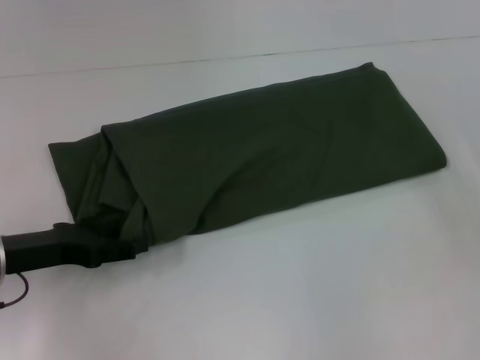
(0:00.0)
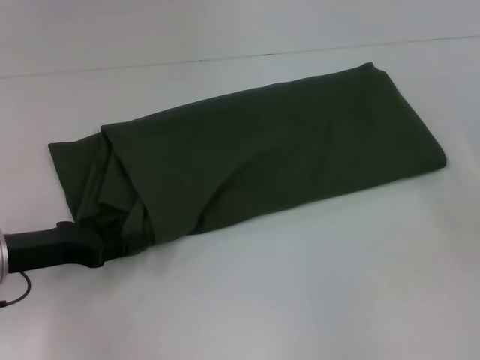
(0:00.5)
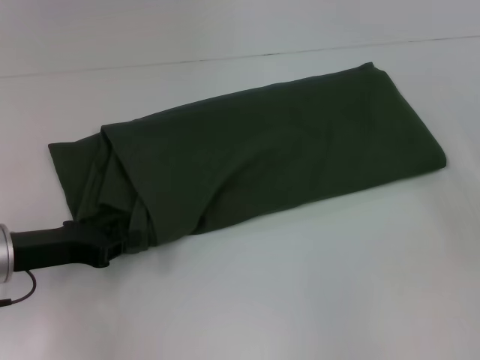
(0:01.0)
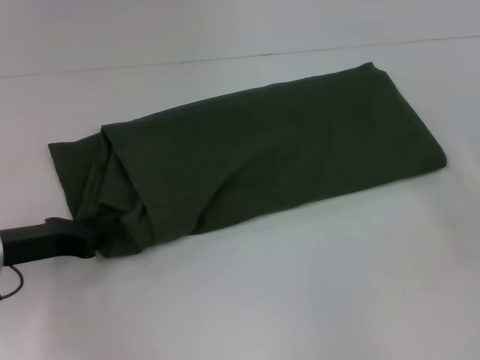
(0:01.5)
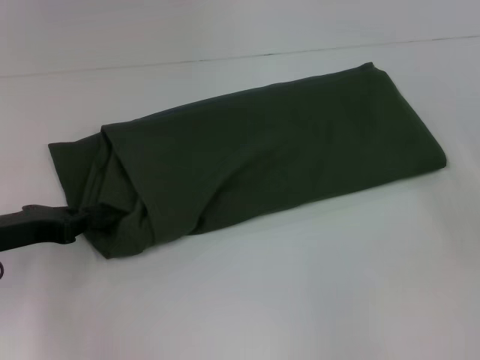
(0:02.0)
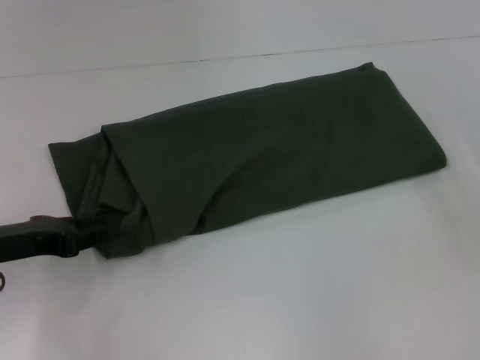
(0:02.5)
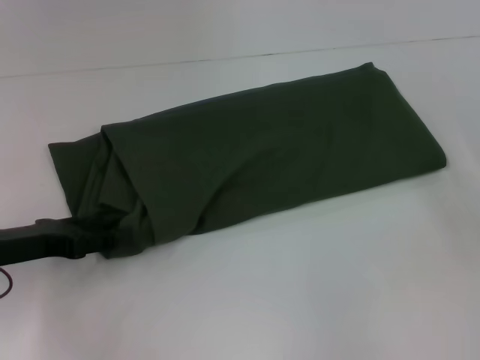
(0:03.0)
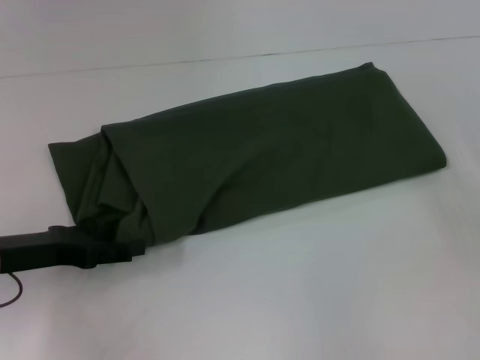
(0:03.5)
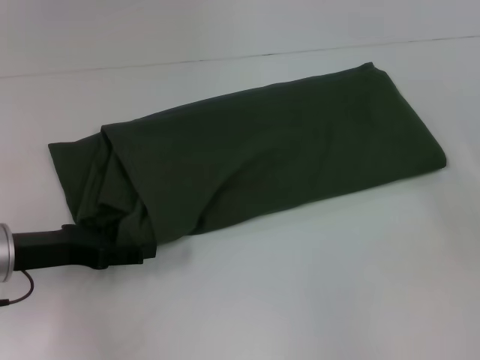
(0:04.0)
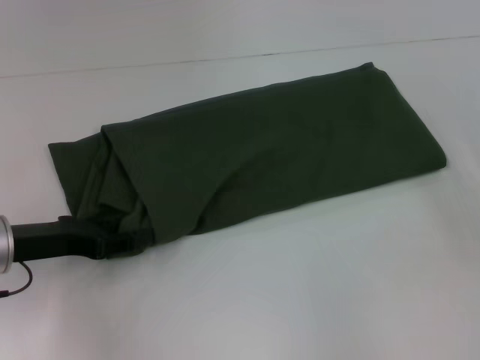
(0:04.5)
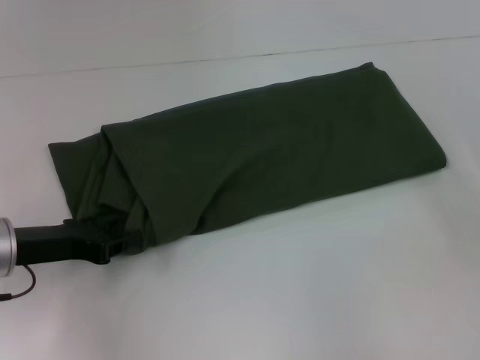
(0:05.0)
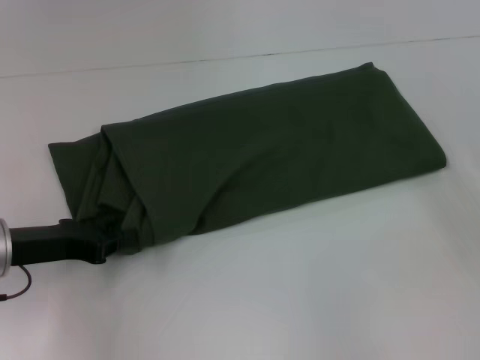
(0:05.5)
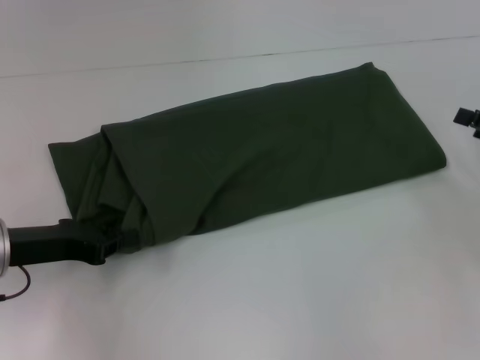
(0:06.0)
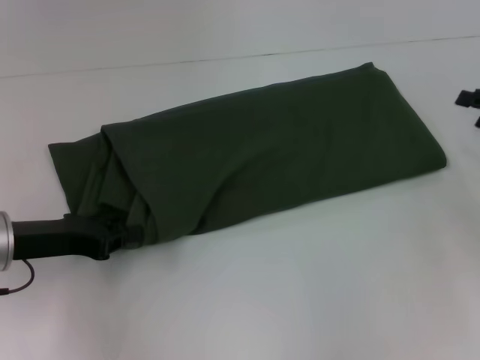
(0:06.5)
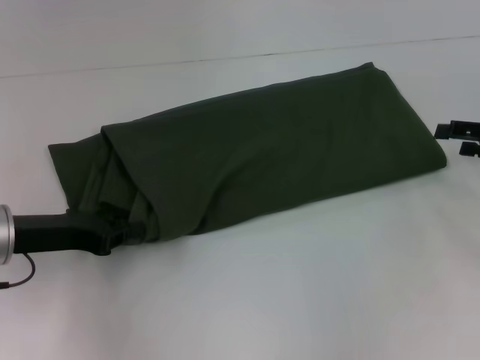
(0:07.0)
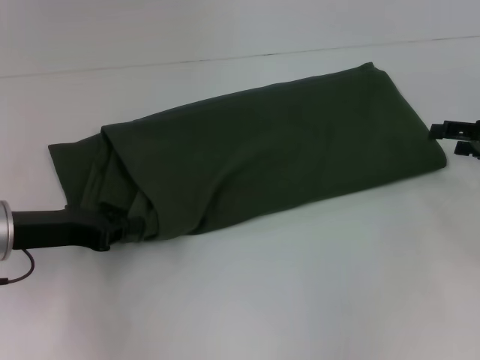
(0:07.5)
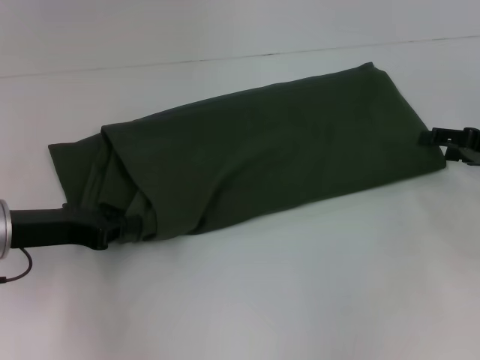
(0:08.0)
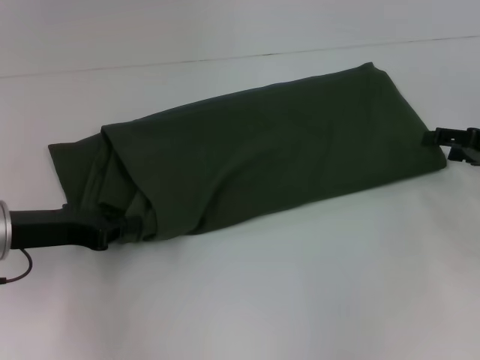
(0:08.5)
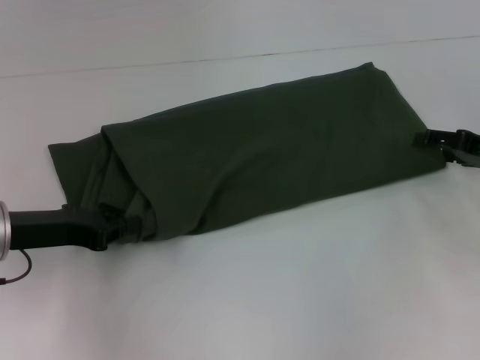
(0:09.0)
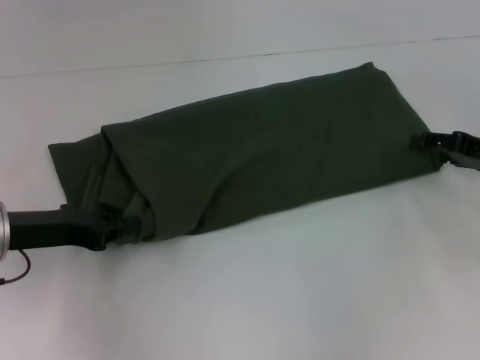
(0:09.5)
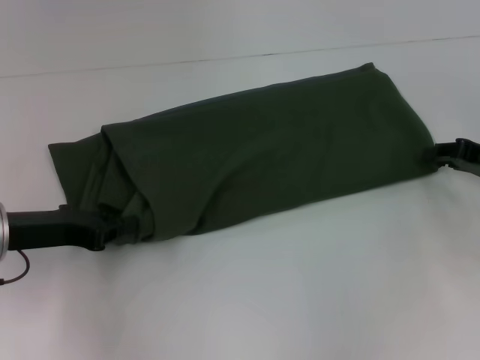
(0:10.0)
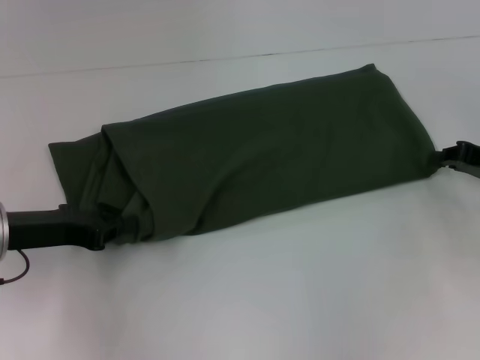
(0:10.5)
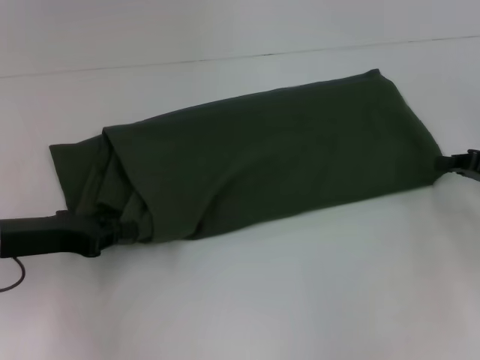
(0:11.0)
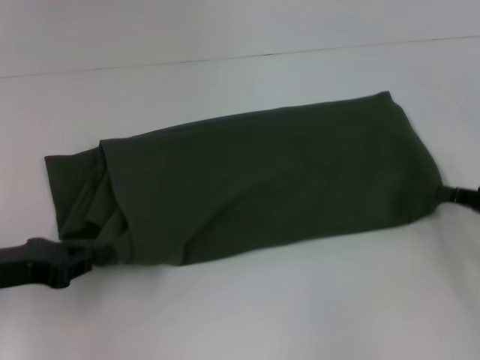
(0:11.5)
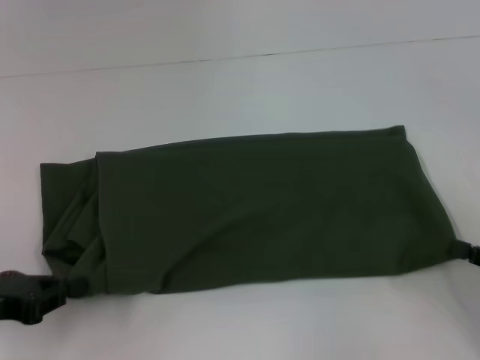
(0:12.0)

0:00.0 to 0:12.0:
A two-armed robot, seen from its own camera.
0:00.0 to 0:02.0: The left gripper closes.
0:02.0 to 0:04.0: The left gripper opens.
0:04.0 to 0:06.0: The left gripper closes.
0:06.0 to 0:08.0: The grippers move only a little.
0:08.0 to 0:10.0: Both grippers stay put.
0:10.0 to 0:12.0: The right gripper moves backward, roughly 15 cm, and closes its fingers; the left gripper travels backward and to the left by about 10 cm.

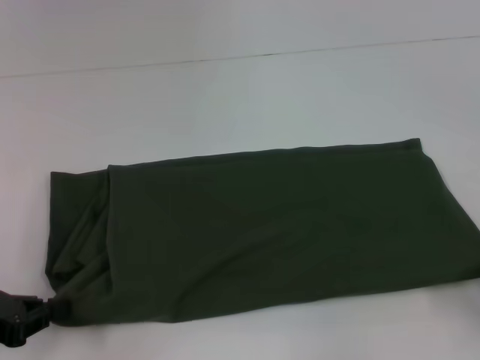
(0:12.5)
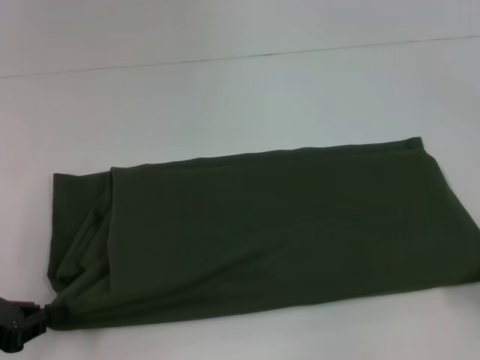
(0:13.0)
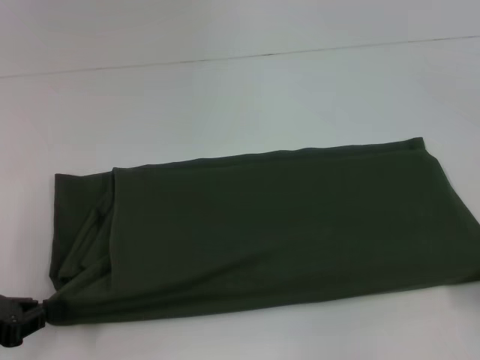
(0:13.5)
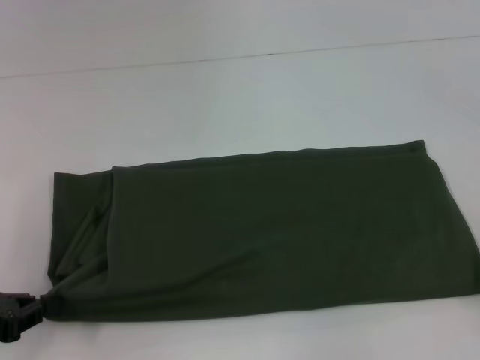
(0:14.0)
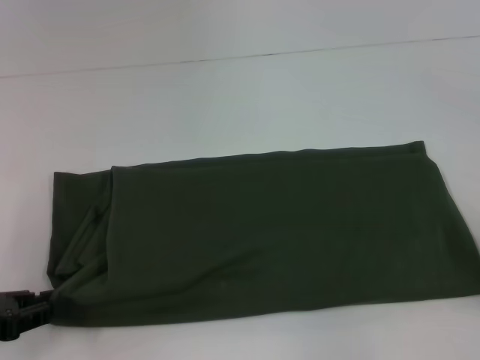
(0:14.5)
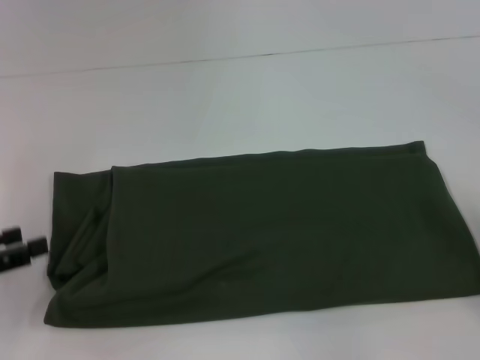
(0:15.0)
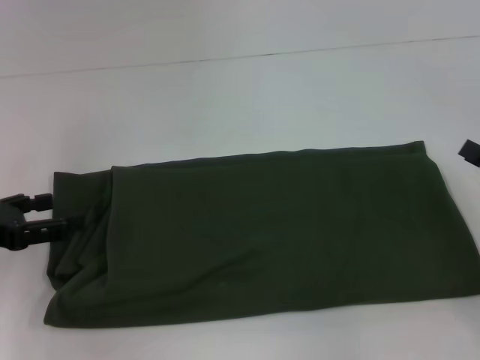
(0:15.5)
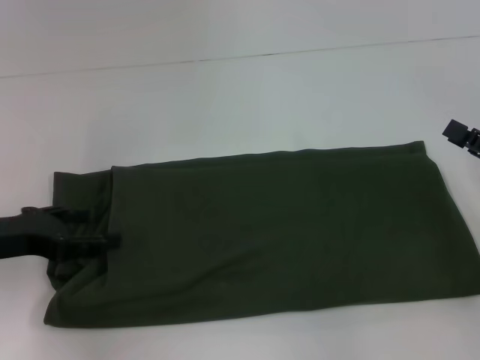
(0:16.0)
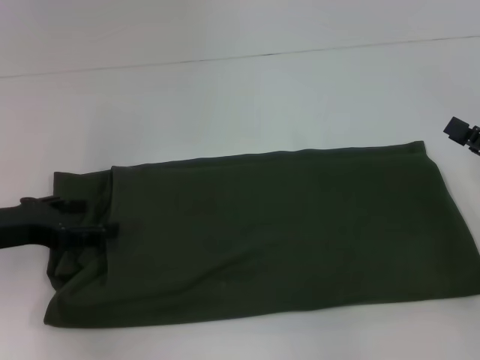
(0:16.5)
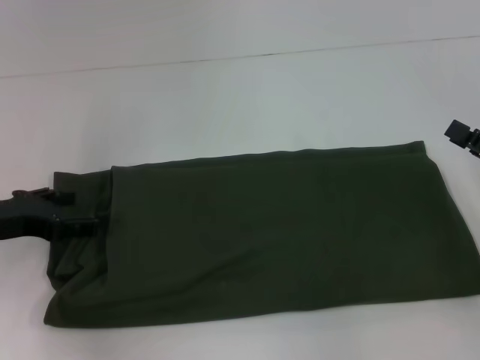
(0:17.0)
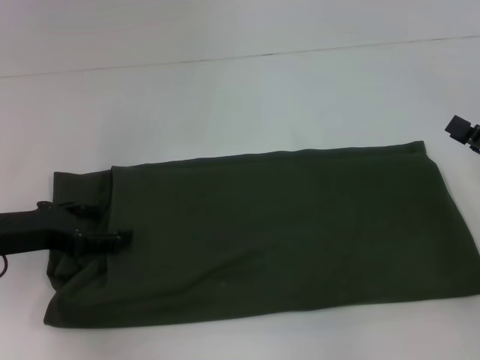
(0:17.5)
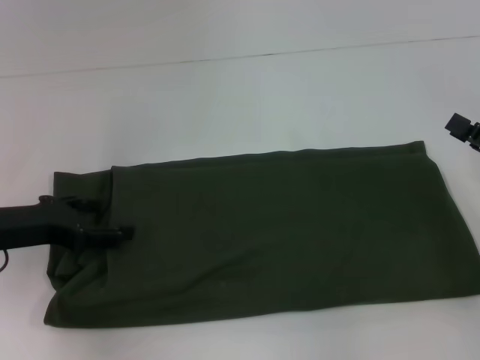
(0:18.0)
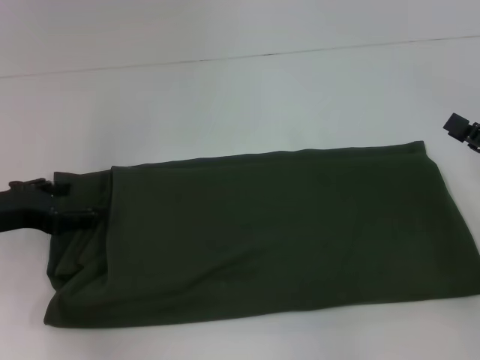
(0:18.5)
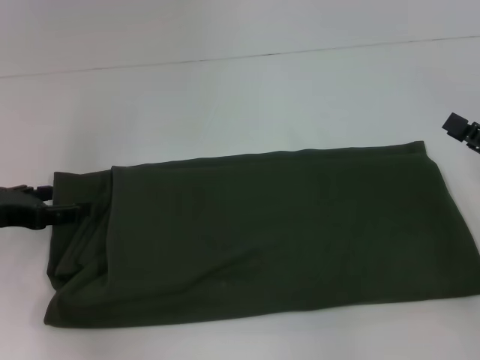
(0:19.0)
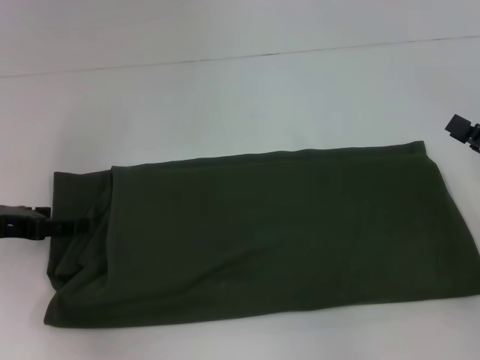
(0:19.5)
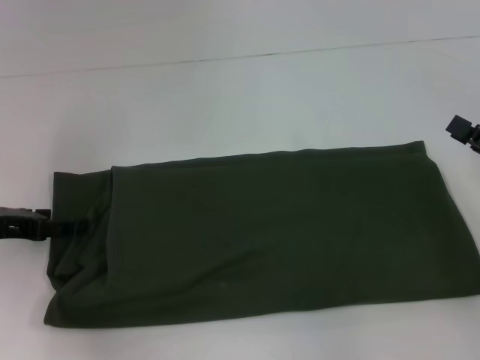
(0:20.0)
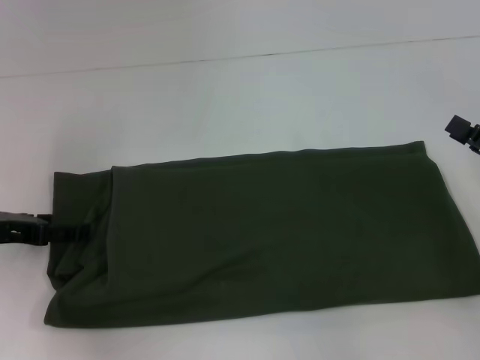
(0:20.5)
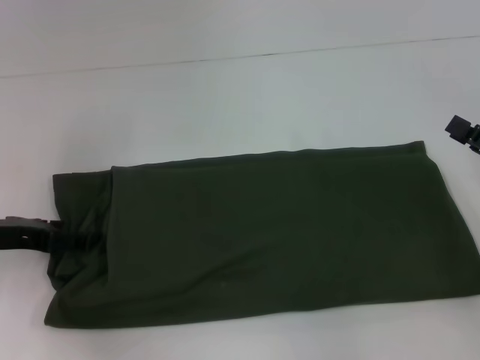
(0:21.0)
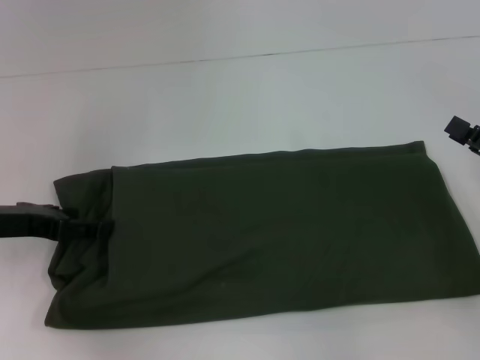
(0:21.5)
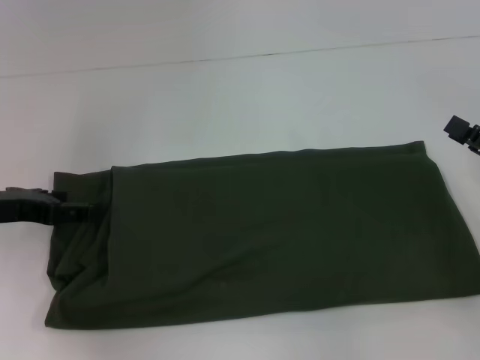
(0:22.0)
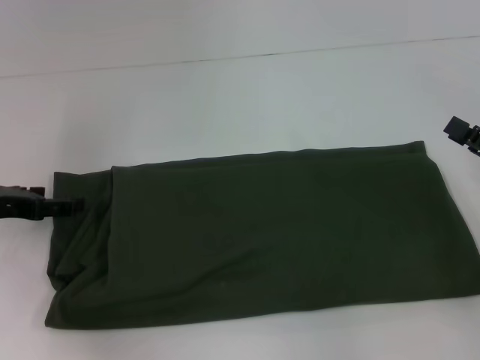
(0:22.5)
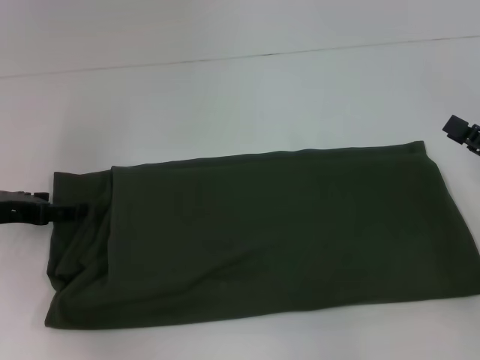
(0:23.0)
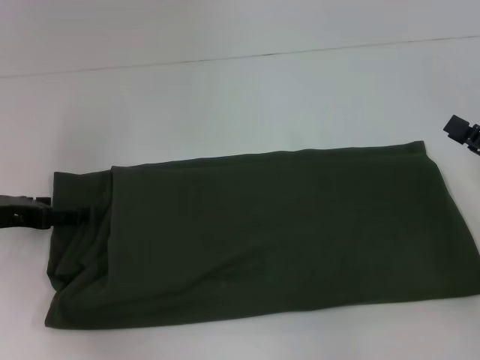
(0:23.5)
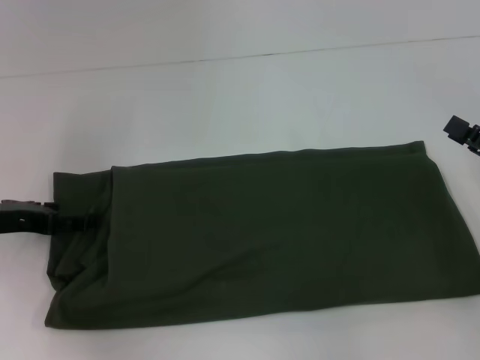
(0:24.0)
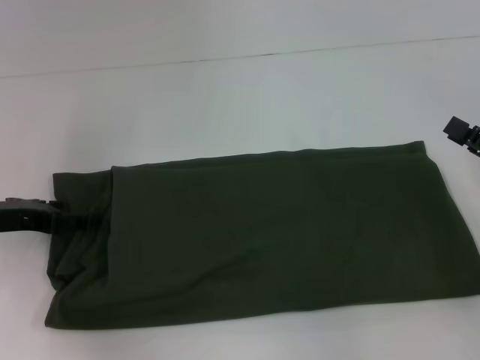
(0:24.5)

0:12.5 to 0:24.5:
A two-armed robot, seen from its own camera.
0:12.5 to 0:14.5: The right gripper opens up.
0:14.5 to 0:16.5: The left gripper moves forward, approximately 10 cm, and opens.
0:16.5 to 0:24.5: There are only small adjustments of the grippers.

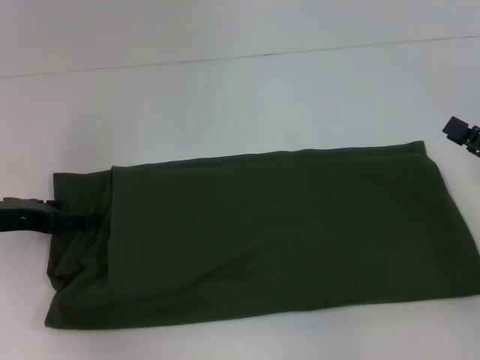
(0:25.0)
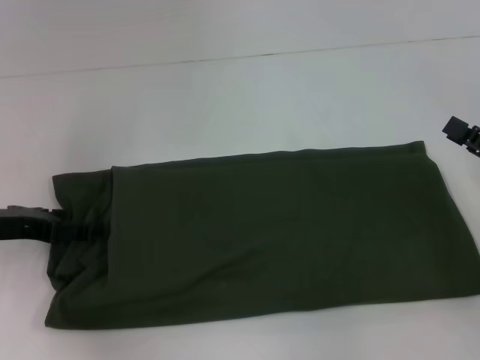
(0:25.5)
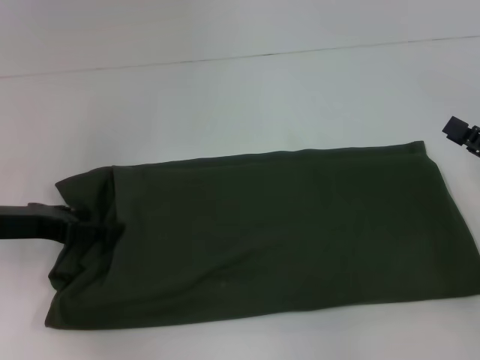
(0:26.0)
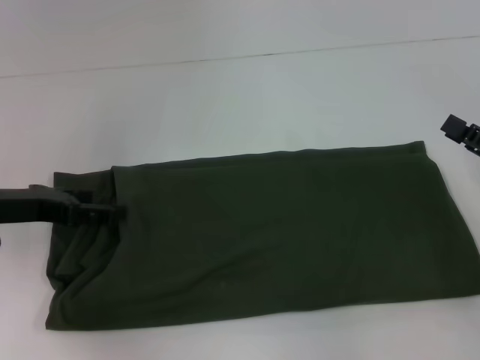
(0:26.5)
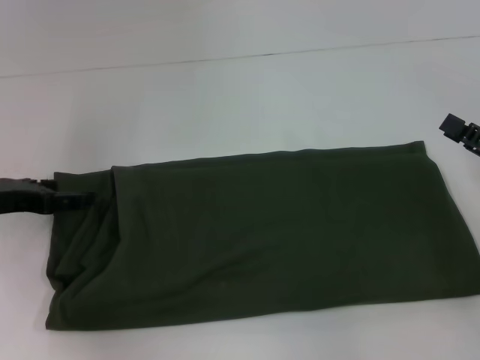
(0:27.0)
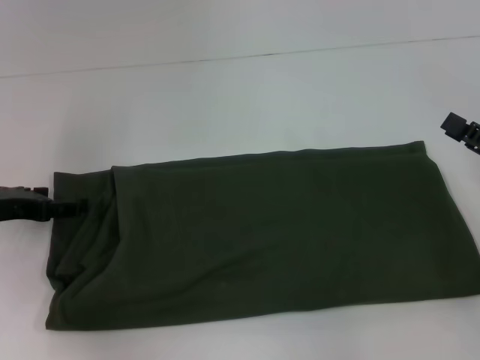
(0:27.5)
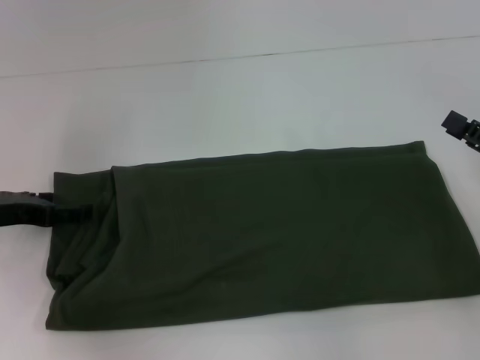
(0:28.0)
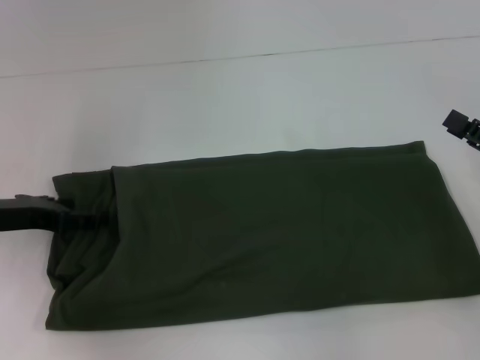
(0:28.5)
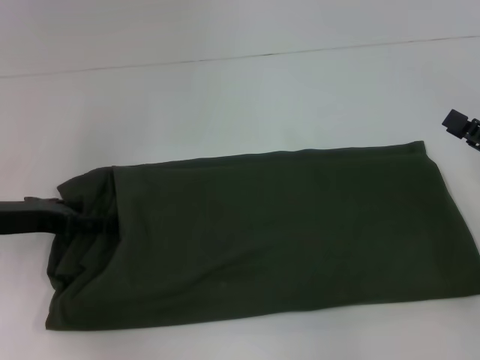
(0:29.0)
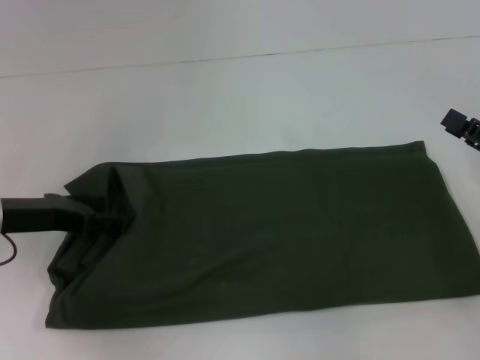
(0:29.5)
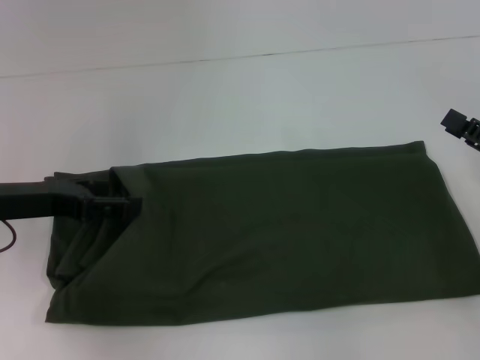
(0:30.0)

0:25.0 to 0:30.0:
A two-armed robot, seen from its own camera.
0:25.0 to 0:30.0: The grippers stay close to where they were, moving slightly.
